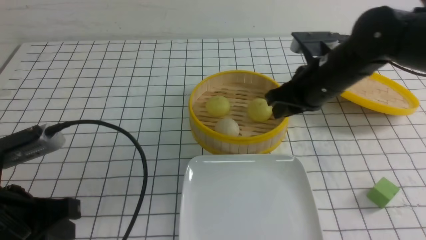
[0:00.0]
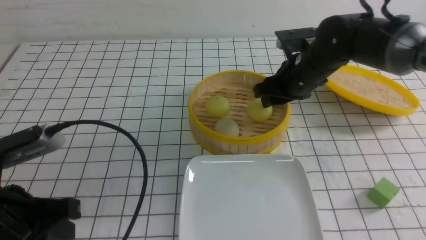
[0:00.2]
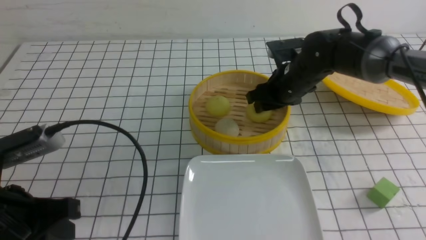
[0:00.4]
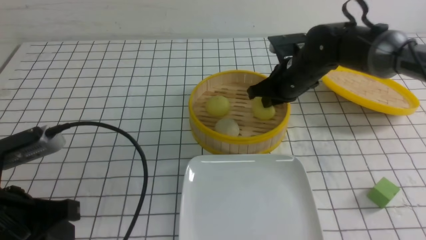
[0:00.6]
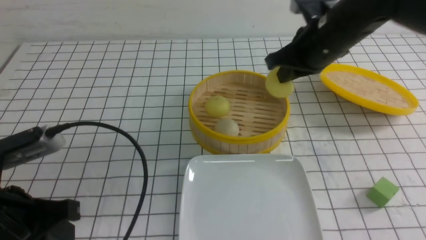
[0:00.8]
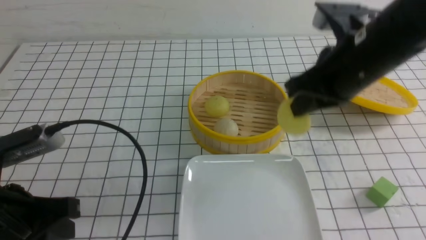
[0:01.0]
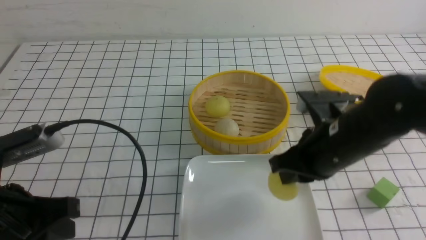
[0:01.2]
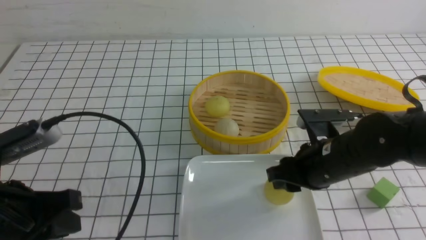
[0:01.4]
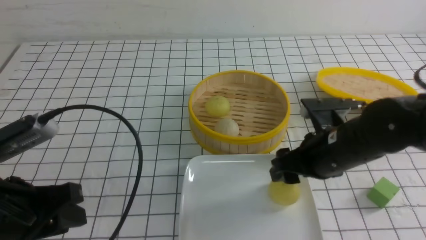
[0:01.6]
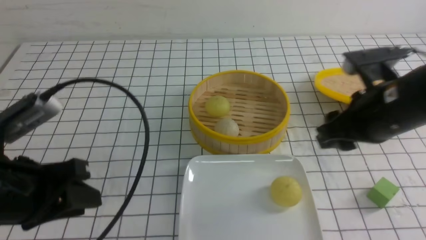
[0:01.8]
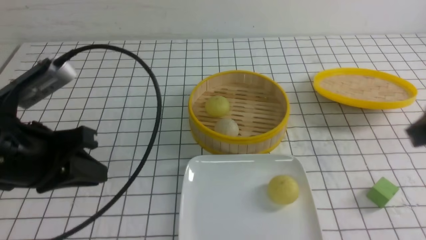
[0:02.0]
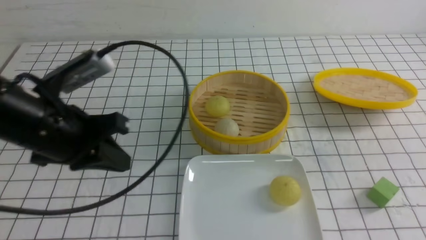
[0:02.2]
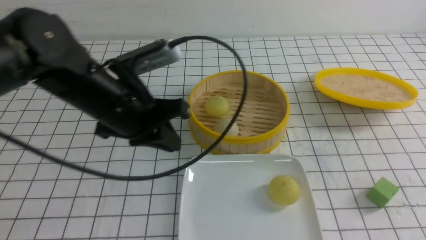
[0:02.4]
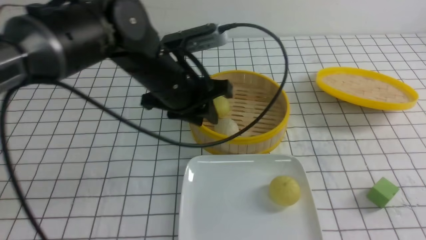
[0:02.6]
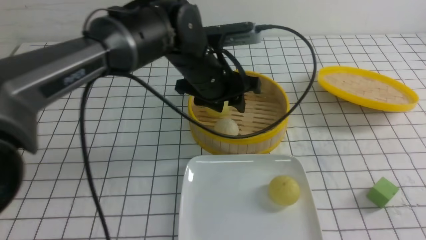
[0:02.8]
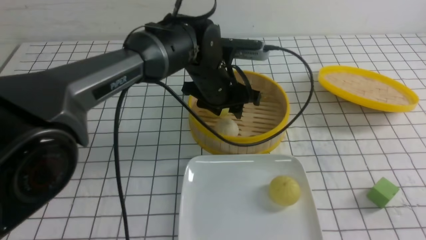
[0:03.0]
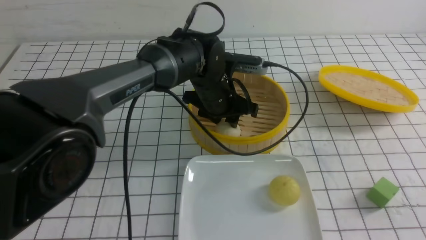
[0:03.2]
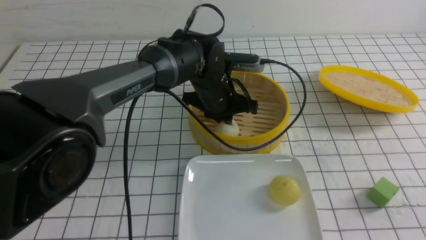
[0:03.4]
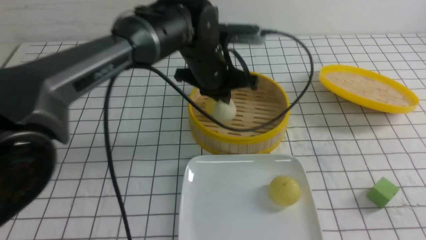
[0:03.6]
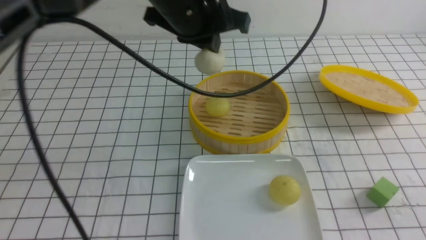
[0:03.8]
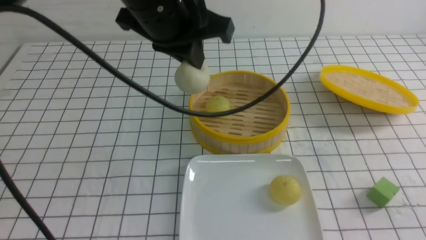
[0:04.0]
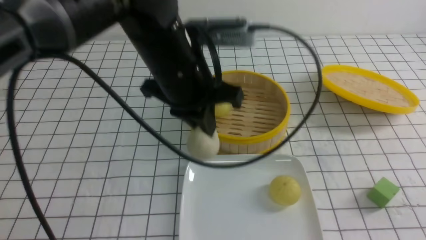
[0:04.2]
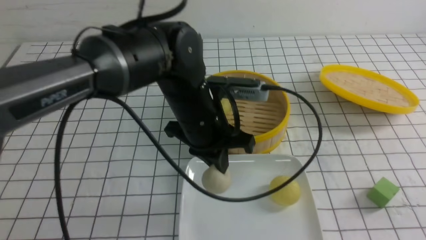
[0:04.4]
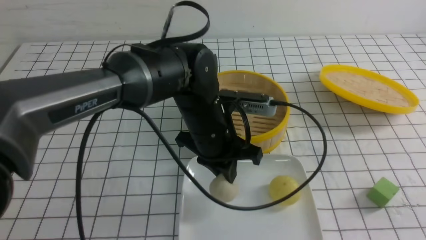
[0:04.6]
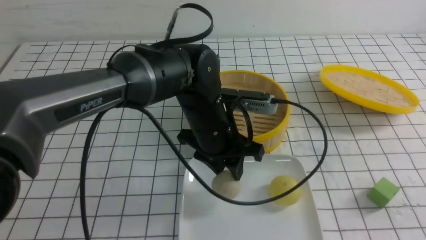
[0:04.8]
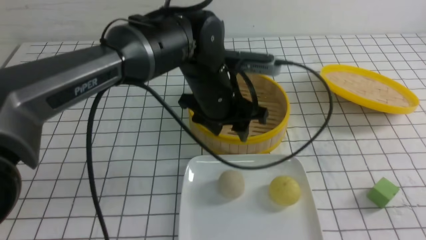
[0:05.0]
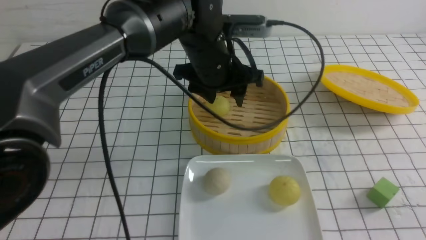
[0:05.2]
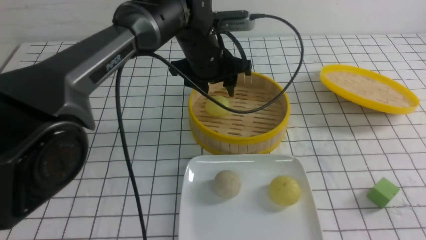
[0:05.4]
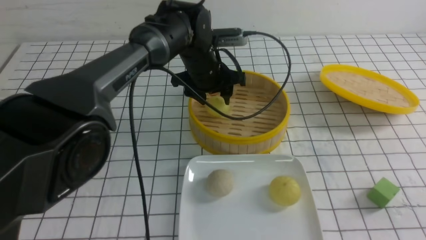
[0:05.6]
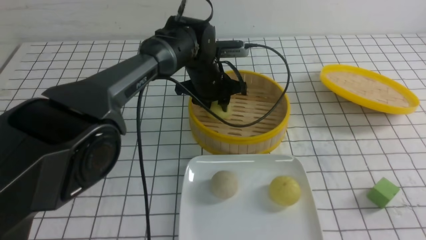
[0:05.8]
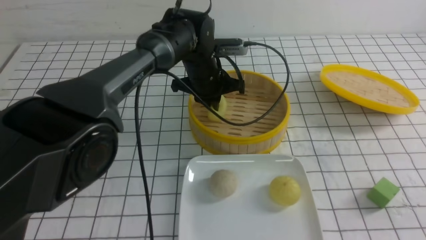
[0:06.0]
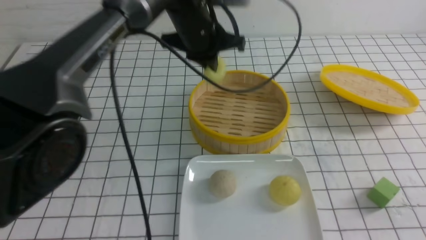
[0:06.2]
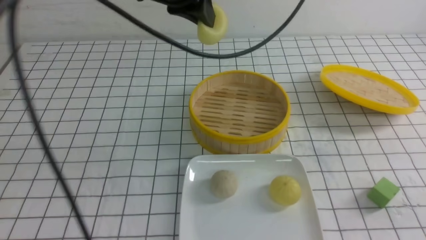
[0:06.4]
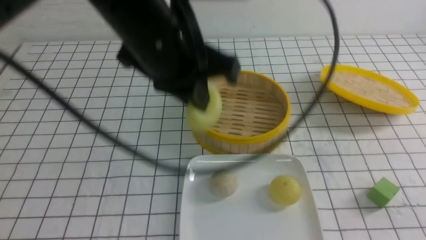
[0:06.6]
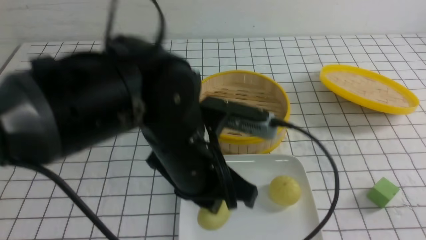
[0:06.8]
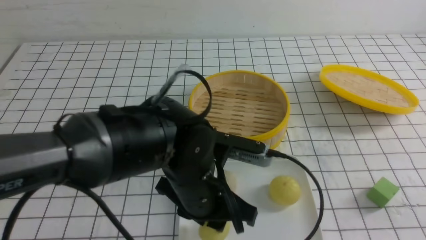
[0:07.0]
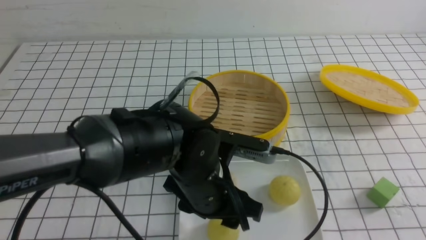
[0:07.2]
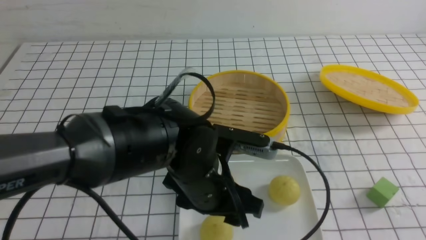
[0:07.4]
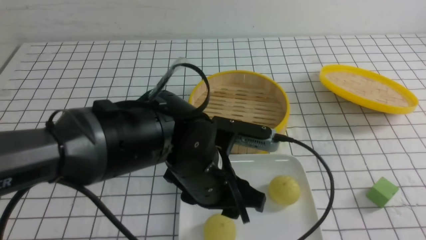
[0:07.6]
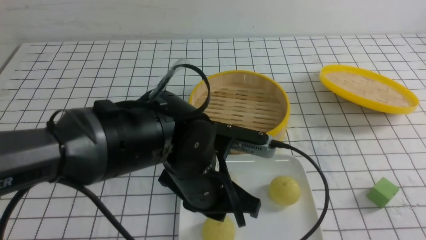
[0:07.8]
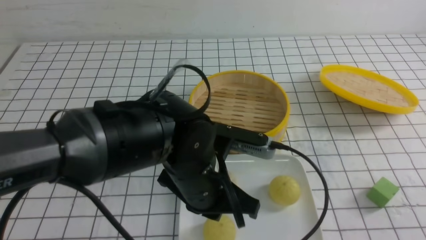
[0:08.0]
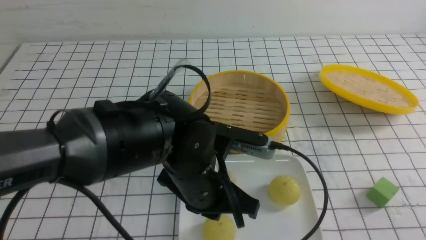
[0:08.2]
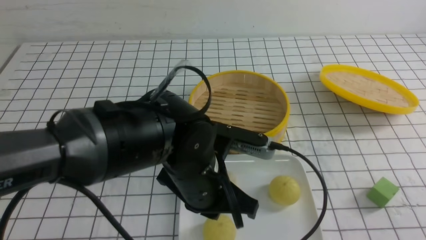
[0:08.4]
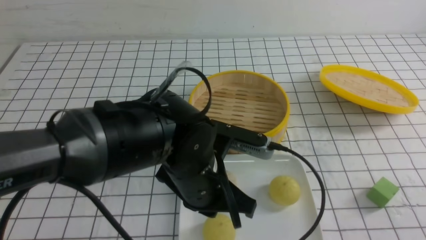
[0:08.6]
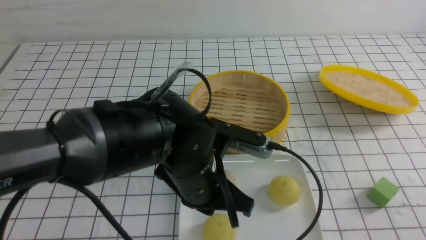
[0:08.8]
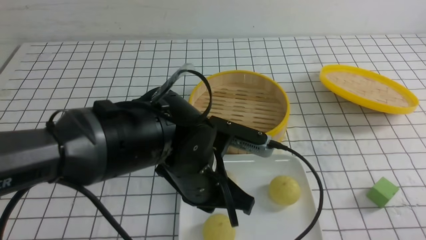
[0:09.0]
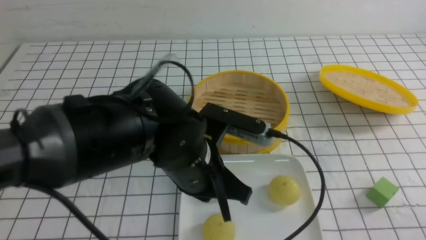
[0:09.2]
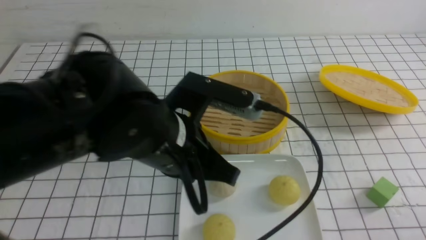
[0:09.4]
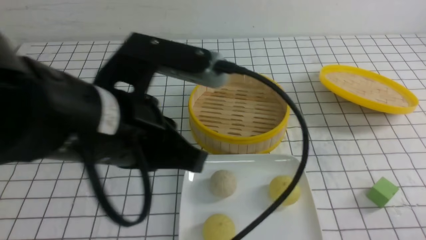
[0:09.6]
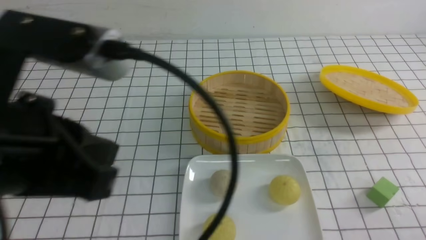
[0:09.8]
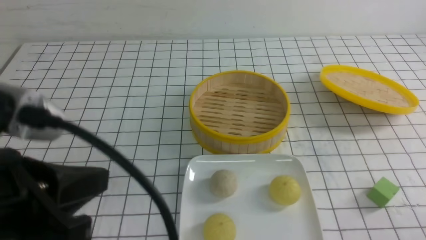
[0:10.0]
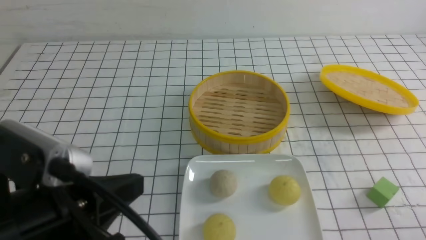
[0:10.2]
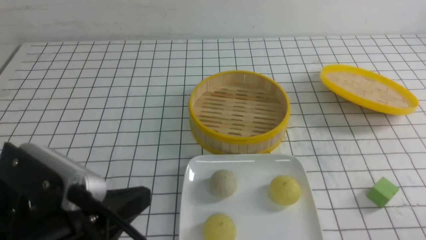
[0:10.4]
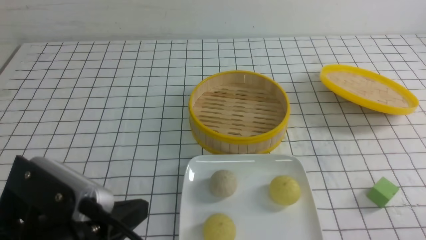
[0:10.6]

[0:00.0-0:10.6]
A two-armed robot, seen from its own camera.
Step, 0:00.8 to 0:01.6: use the right arm to put the steamed stuffed bun into the plate.
Step, 0:01.8 to 0:03.4: use the left arm to grab the steamed stuffed bun that is closest to it.
Step, 0:03.6 to 0:04.8: use the left arm to put the steamed stuffed bun into the plate.
Step, 0:05.0 to 0:06.0: use the left arm to grab the steamed stuffed bun that is closest to it.
Step, 0:06.2 to 0:07.4: use the left arm to put the steamed stuffed bun into the plate.
0:00.0 to 0:01.6: The left gripper opens. Meanwhile the right gripper heads backward, covering approximately 10 cm, and opens.
0:01.6 to 0:03.0: The left gripper heads forward and to the right, covering roughly 35 cm, and closes and opens again; the right gripper moves backward and to the right, approximately 25 cm, and closes up.
0:03.0 to 0:04.6: The left gripper moves backward, roughly 10 cm, moves approximately 15 cm upward and comes back, and closes.
0:04.6 to 0:06.0: The left gripper goes about 15 cm forward, and opens, then closes once more.
0:06.0 to 0:07.6: The right gripper moves backward, about 5 cm; the left gripper goes some 25 cm backward, and opens.
0:07.6 to 0:09.0: The left gripper closes; the right gripper goes about 10 cm downward.
0:09.0 to 0:10.6: The left gripper is displaced to the left and backward by roughly 20 cm.

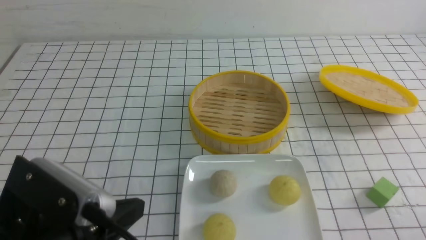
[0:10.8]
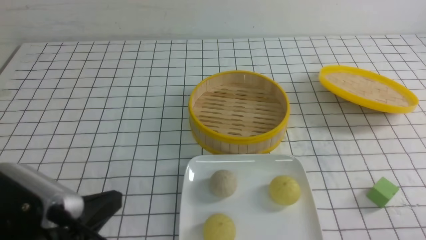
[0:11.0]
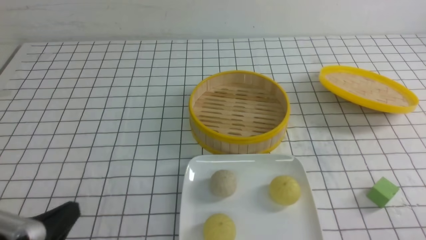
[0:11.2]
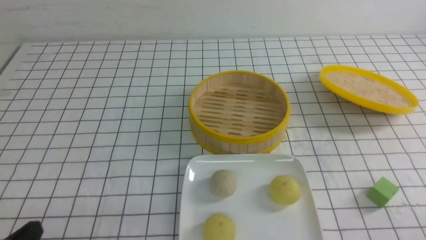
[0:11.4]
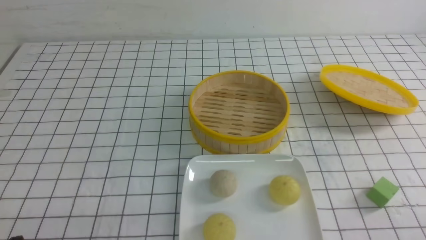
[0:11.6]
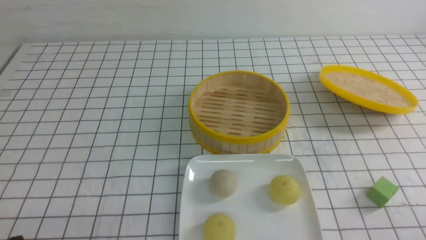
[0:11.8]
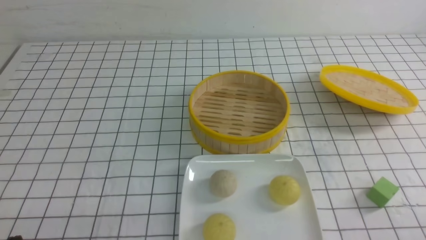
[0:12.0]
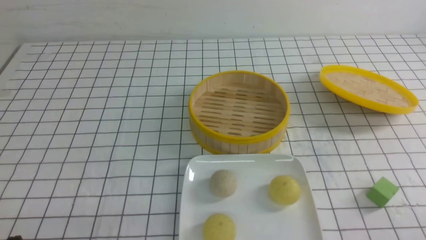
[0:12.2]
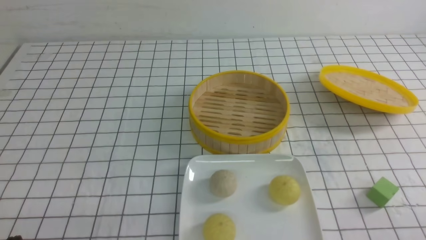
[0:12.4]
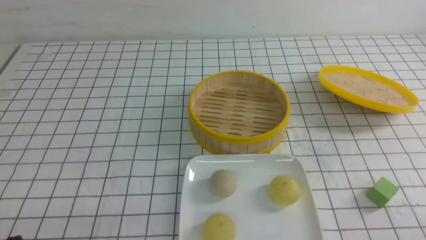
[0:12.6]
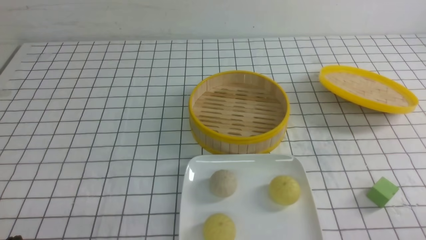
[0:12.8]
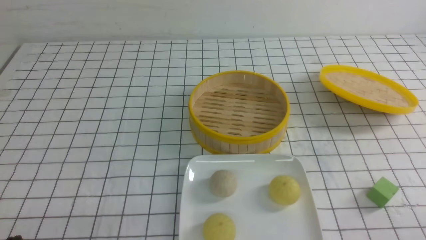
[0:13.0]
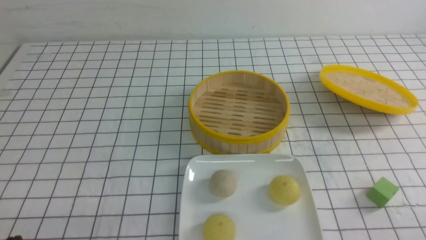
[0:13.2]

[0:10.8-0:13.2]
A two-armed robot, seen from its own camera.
0:10.8 to 0:12.0: The left gripper heads downward and to the left, covering roughly 15 cm.
0:12.0 to 0:13.2: Neither gripper changes place.

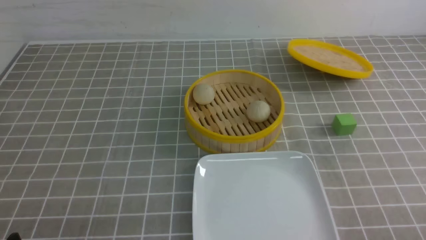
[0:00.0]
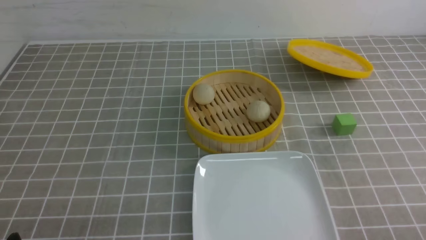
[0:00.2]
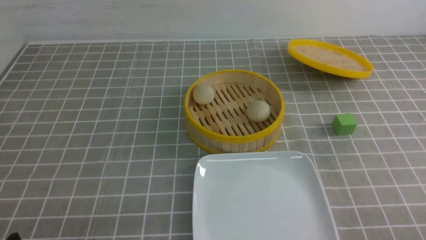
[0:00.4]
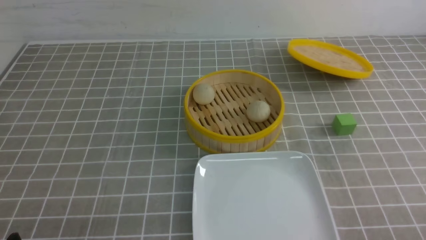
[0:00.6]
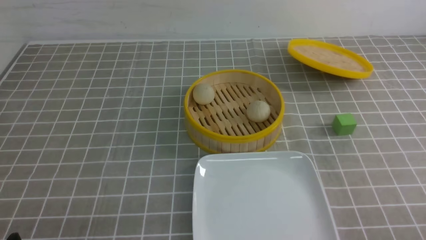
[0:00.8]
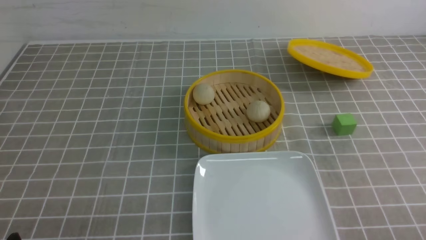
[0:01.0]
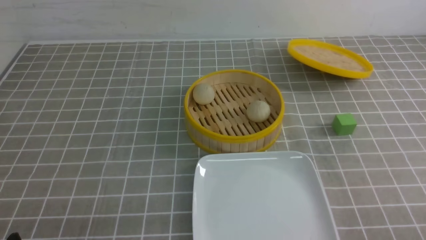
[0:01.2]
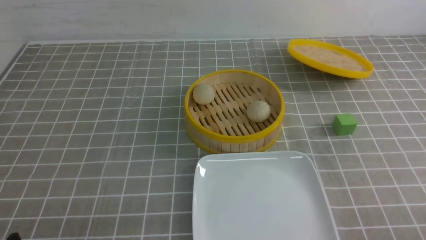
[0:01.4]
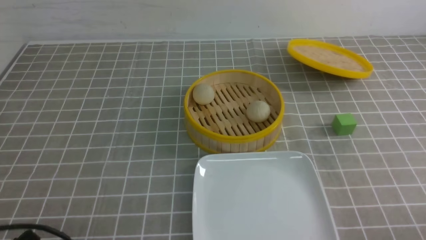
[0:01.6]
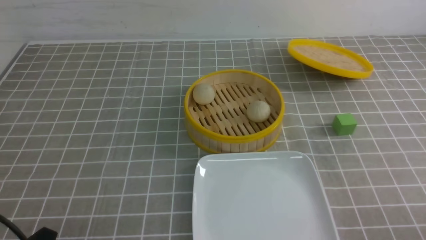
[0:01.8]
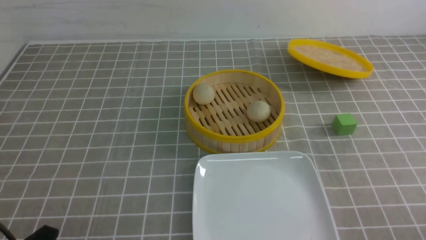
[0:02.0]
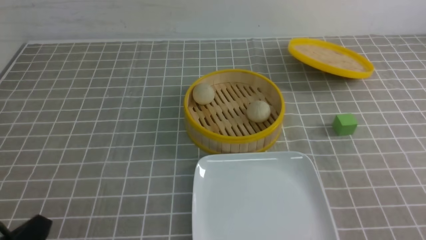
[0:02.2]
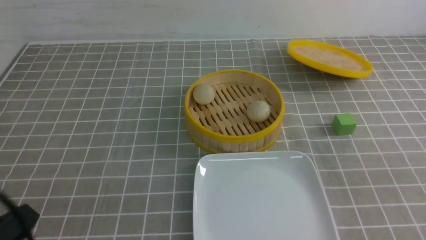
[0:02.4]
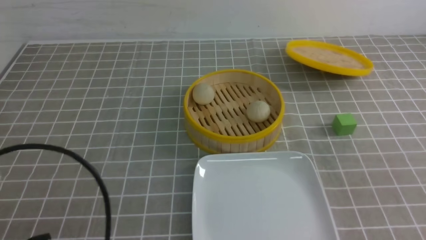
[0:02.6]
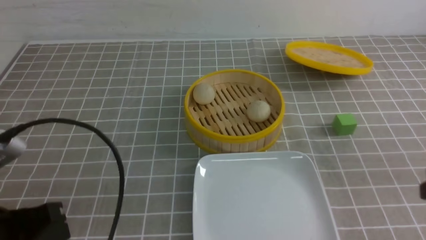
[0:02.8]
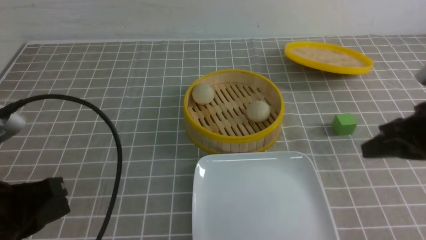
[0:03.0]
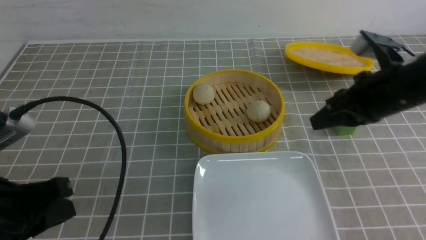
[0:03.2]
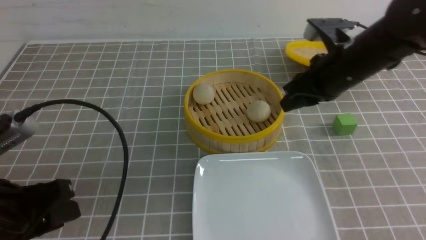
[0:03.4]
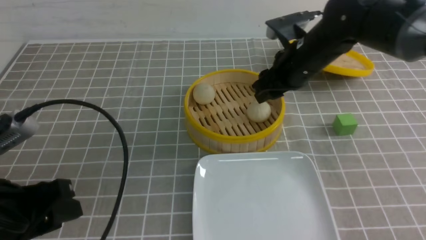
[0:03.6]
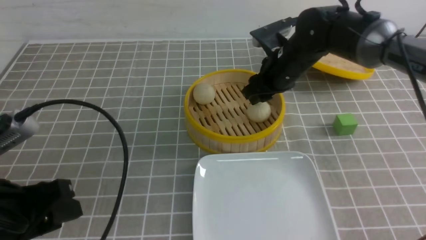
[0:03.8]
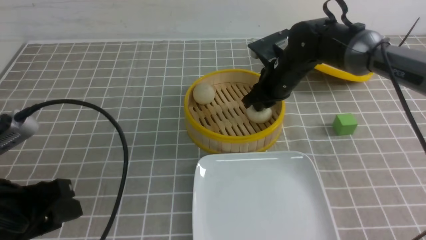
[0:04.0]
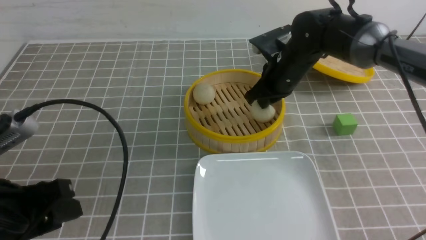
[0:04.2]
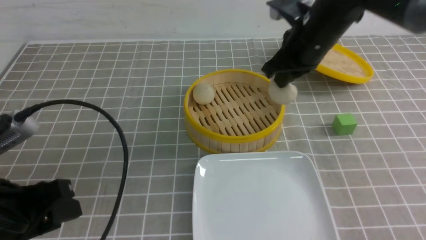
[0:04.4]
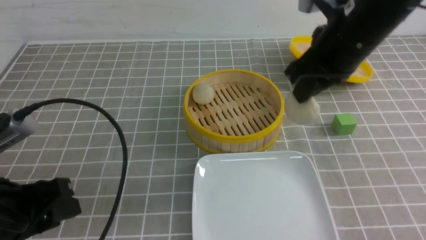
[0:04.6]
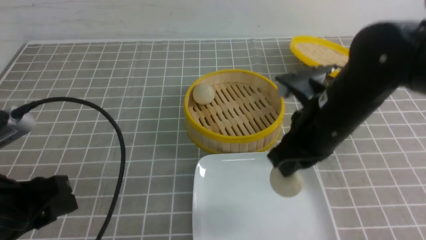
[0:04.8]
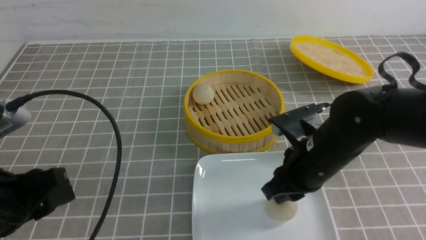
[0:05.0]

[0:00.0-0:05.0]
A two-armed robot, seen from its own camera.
Step, 0:00.0 to 0:04.0: use the right arm to grab the steamed stuffed bun that is closest to it.
0:01.6 to 0:03.4: The left gripper travels upward and forward by some 15 cm, and closes and opens again. Meanwhile the right gripper is displaced forward and to the left by some 35 cm, and closes, then reopens.
0:03.4 to 0:05.0: The right gripper goes approximately 10 cm backward and downward, and closes and opens again.
